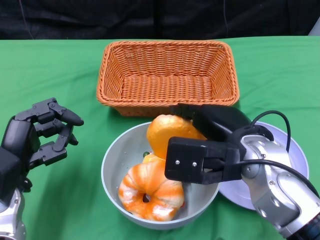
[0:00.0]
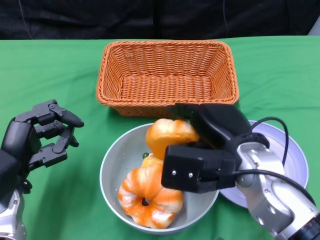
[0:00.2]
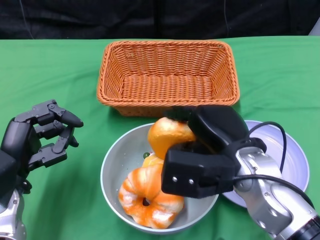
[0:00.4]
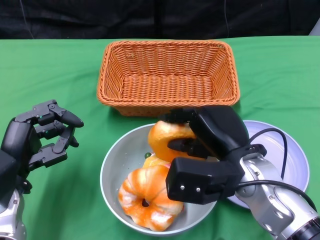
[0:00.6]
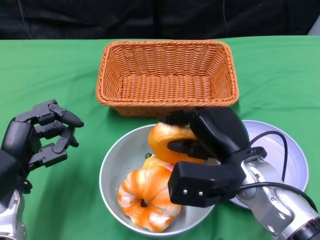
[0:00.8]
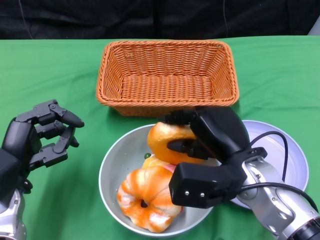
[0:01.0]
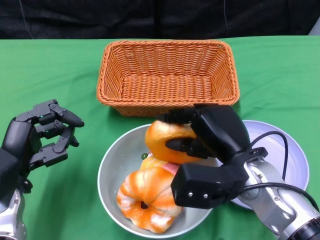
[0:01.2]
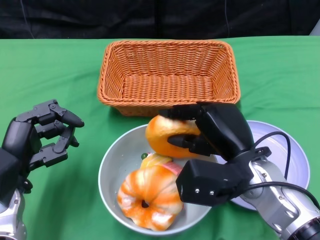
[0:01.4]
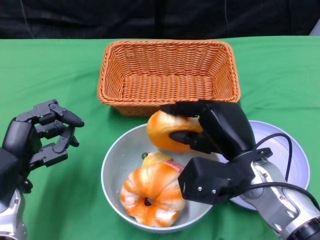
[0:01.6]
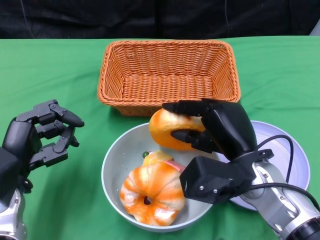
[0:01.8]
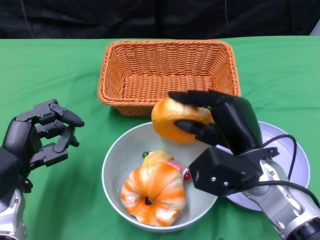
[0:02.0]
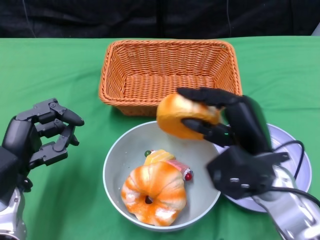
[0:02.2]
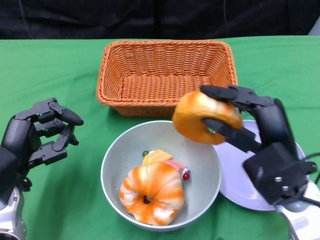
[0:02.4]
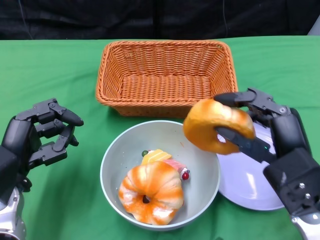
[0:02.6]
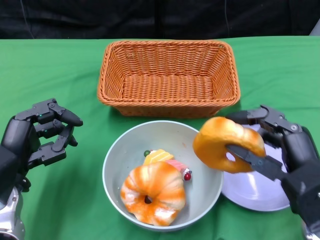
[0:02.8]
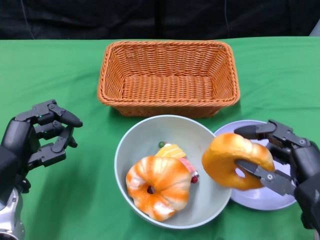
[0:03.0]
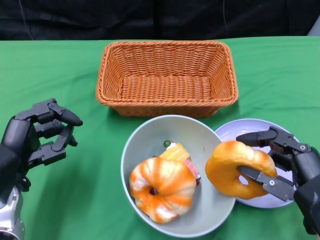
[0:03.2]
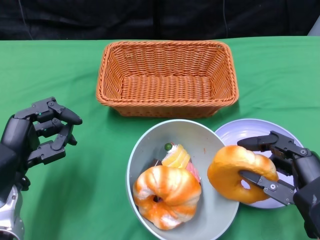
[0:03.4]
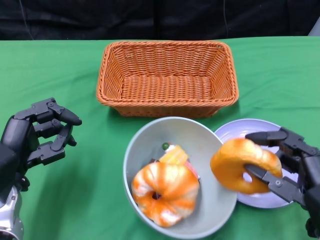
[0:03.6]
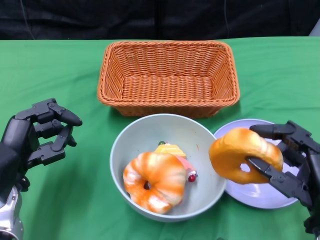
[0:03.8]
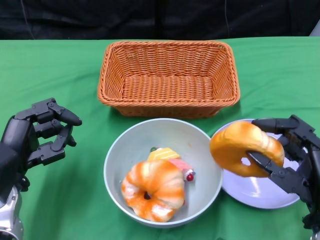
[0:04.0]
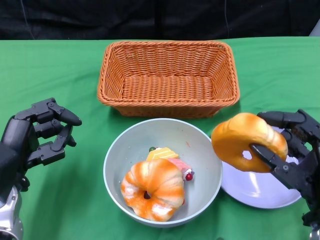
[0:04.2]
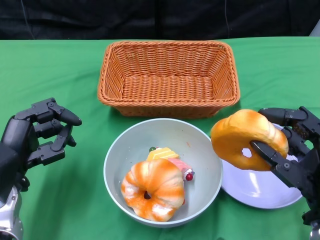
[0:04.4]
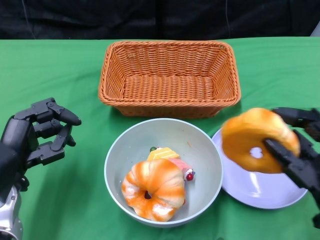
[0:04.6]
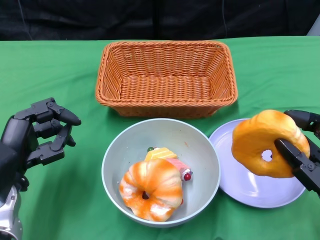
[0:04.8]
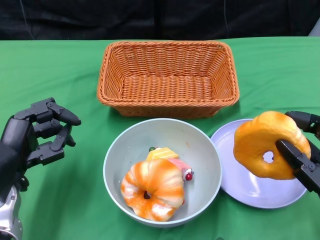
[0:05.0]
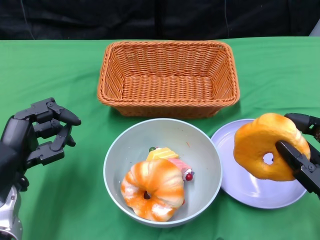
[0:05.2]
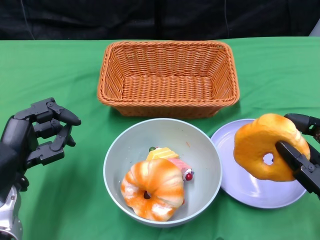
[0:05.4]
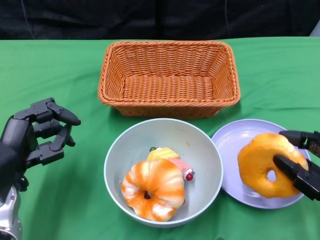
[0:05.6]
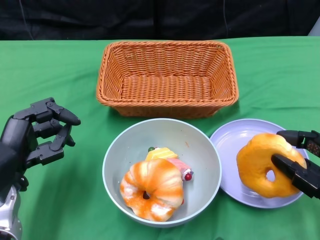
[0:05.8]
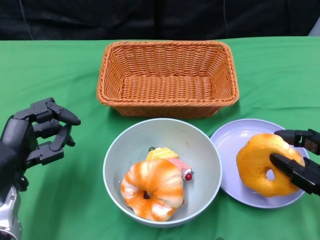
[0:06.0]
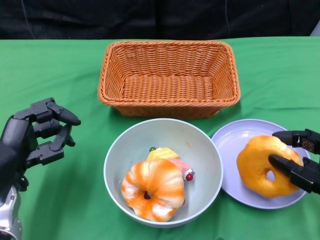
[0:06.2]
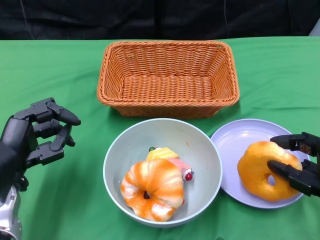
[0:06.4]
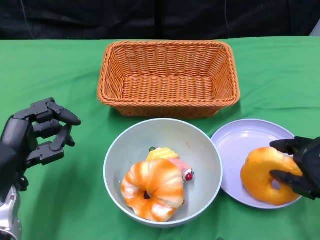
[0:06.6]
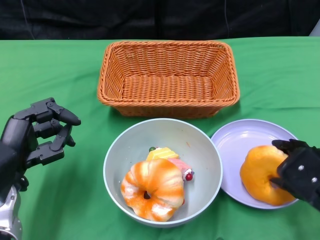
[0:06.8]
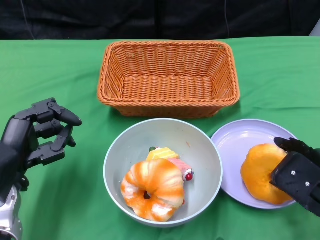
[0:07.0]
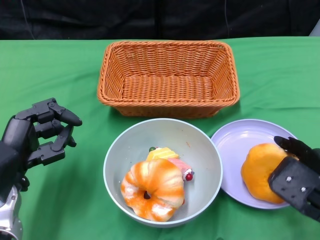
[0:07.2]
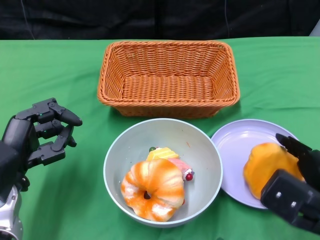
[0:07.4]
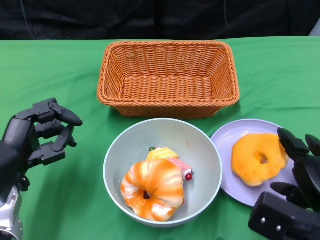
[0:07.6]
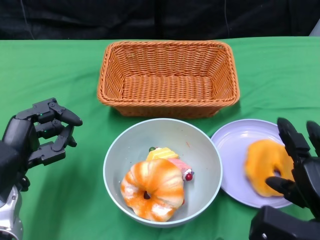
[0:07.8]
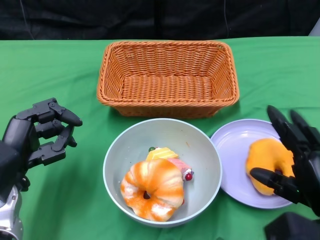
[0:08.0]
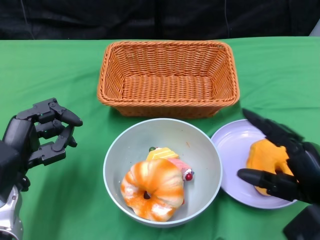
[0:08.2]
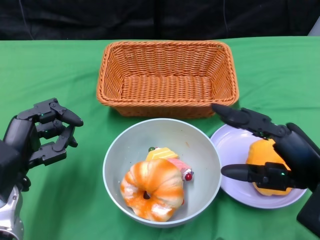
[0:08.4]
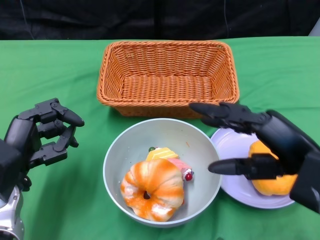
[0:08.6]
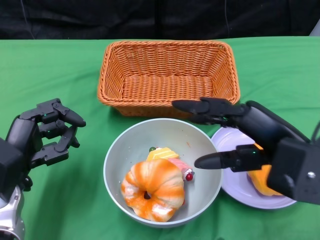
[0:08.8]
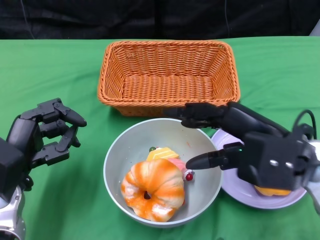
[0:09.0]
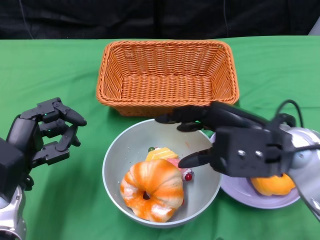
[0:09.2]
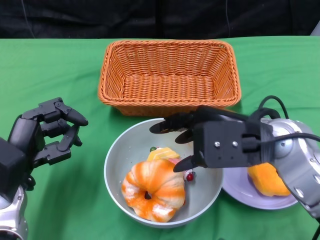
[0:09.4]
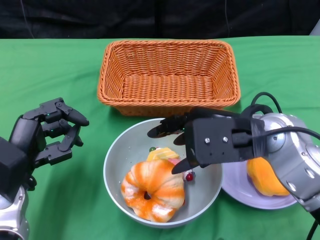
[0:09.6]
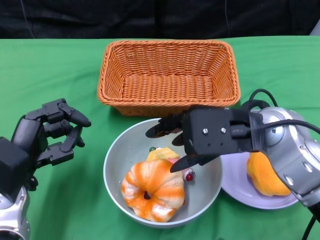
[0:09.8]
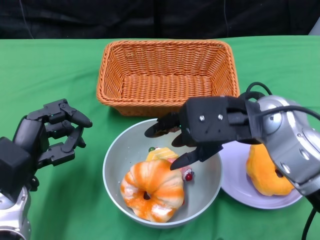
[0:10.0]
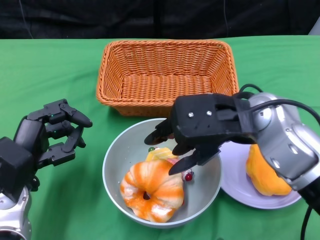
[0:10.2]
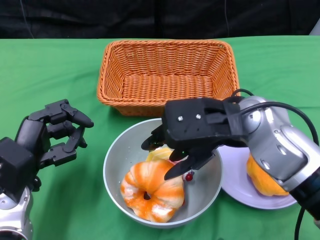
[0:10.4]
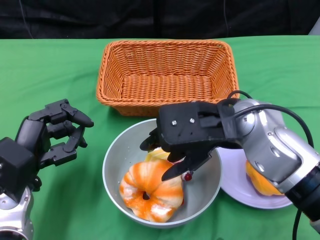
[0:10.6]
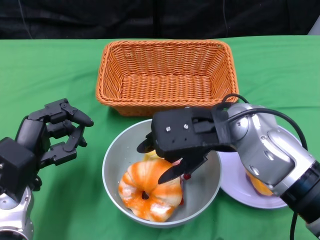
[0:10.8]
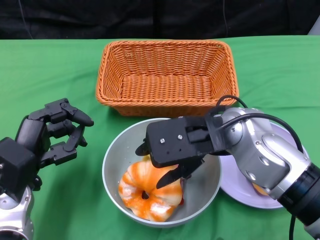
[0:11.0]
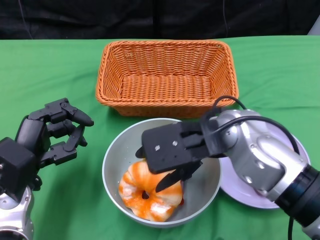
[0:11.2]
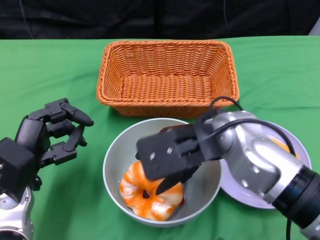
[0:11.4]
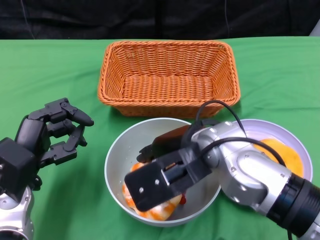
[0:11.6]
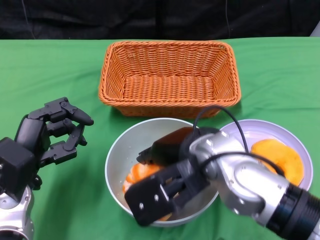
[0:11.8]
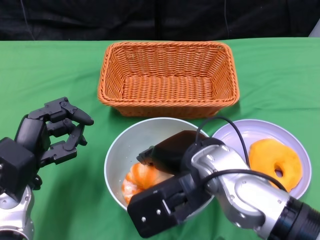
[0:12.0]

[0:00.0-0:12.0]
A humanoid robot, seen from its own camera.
0:01.6 to 0:03.0: The right hand goes about 10 cm to the right and backward.
0:07.6 to 0:09.0: The right hand moves upward and to the left, approximately 10 cm.
0:09.0 to 0:10.4: The right hand heads to the left, covering roughly 5 cm.
0:10.4 to 0:12.0: The right hand moves some 10 cm.

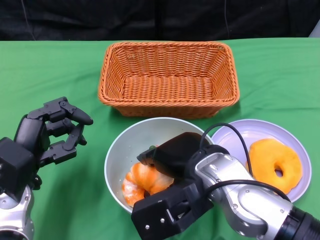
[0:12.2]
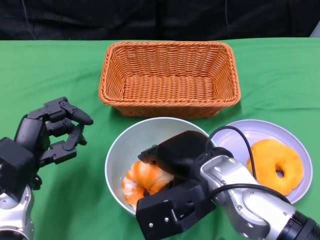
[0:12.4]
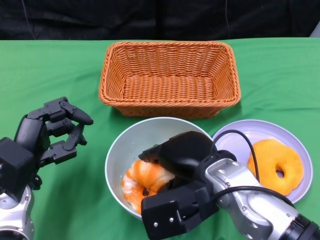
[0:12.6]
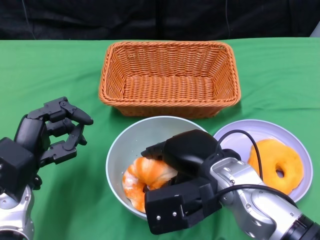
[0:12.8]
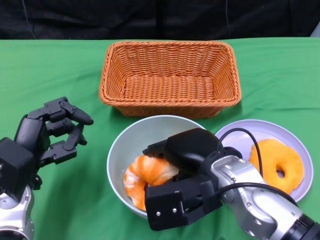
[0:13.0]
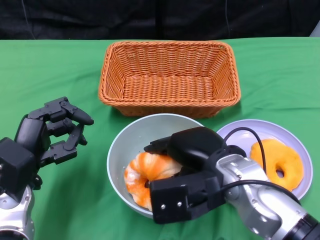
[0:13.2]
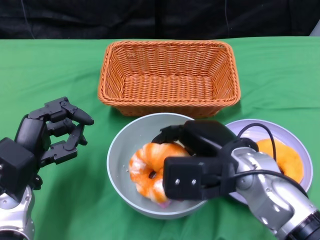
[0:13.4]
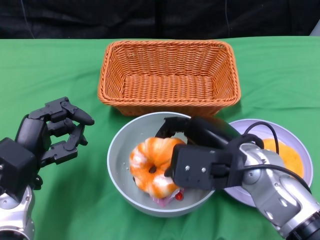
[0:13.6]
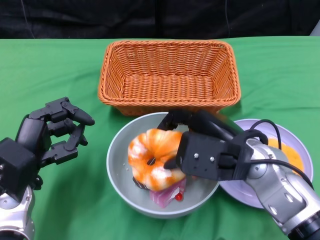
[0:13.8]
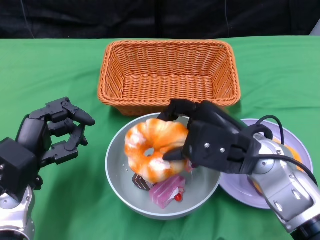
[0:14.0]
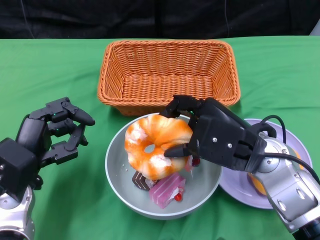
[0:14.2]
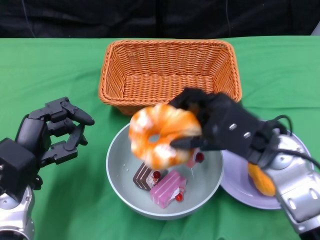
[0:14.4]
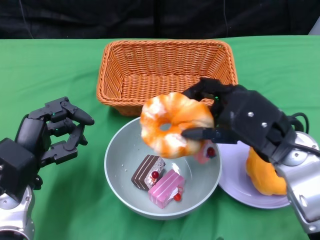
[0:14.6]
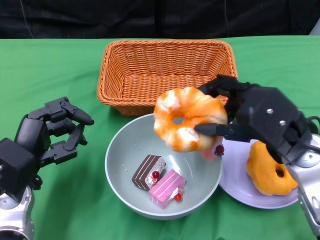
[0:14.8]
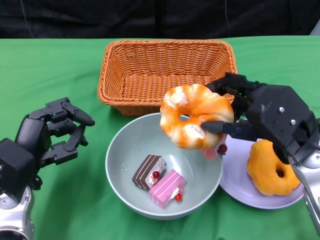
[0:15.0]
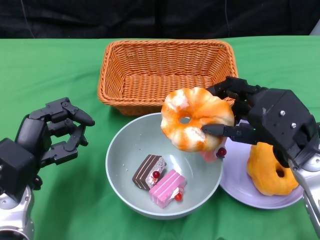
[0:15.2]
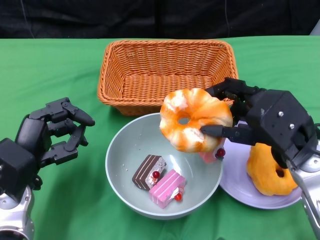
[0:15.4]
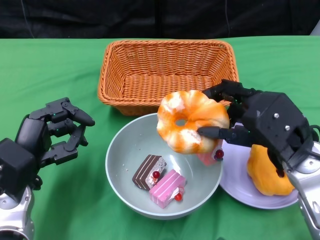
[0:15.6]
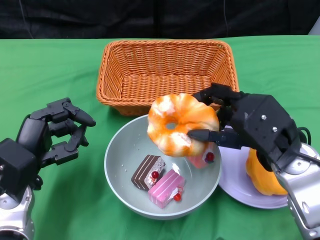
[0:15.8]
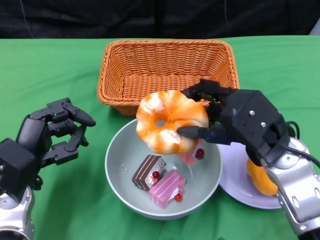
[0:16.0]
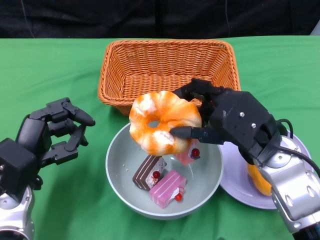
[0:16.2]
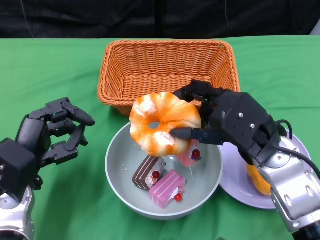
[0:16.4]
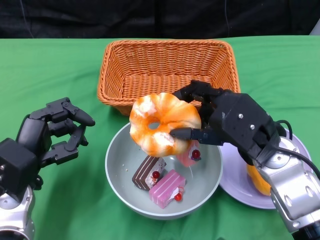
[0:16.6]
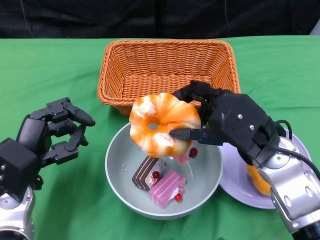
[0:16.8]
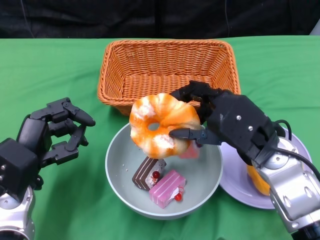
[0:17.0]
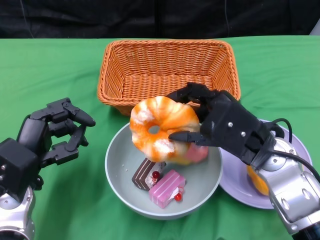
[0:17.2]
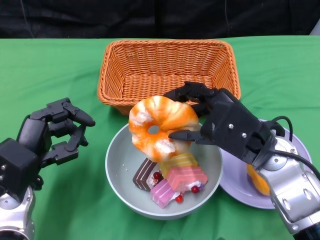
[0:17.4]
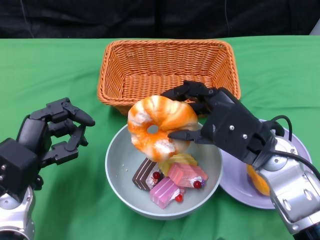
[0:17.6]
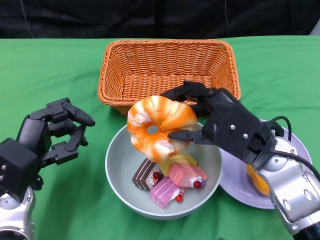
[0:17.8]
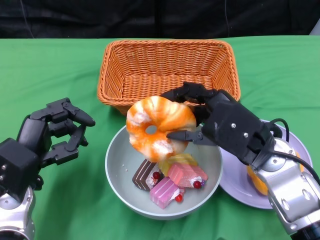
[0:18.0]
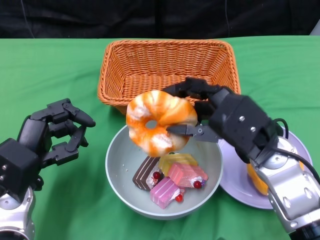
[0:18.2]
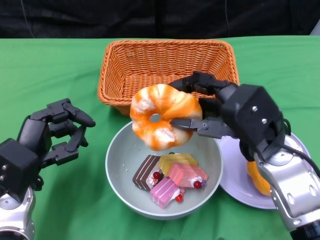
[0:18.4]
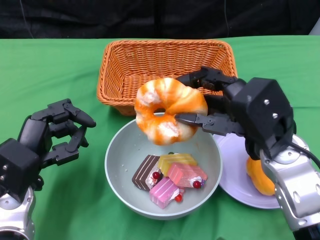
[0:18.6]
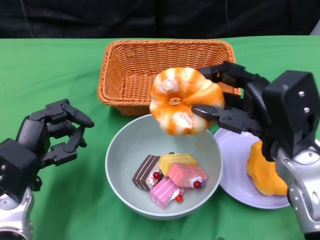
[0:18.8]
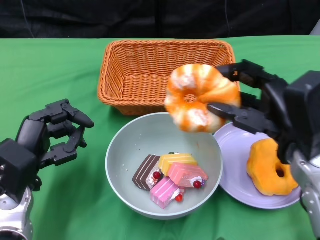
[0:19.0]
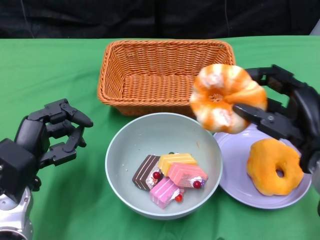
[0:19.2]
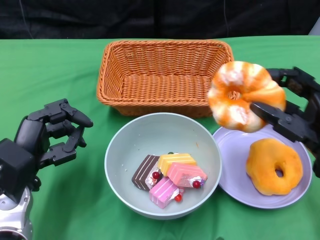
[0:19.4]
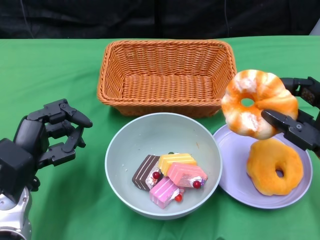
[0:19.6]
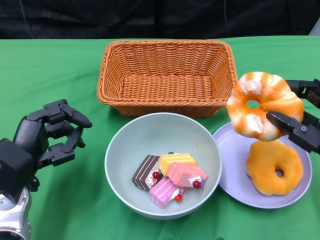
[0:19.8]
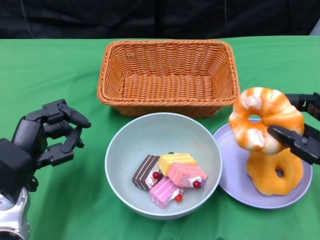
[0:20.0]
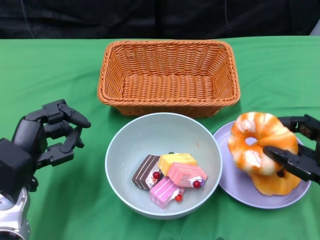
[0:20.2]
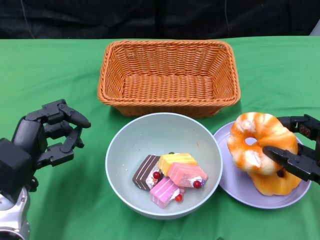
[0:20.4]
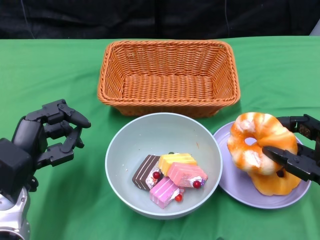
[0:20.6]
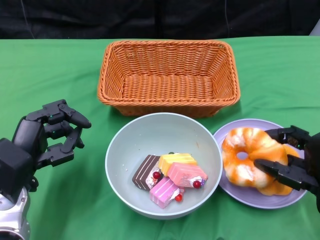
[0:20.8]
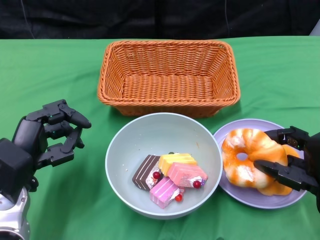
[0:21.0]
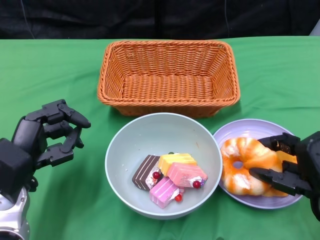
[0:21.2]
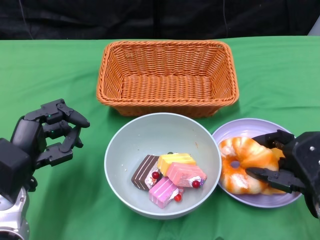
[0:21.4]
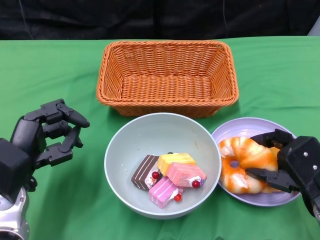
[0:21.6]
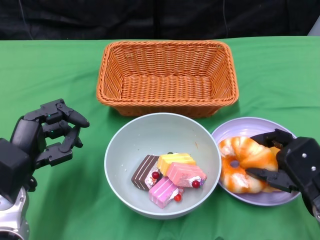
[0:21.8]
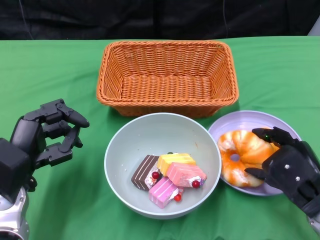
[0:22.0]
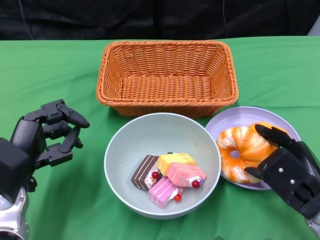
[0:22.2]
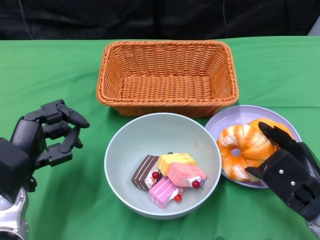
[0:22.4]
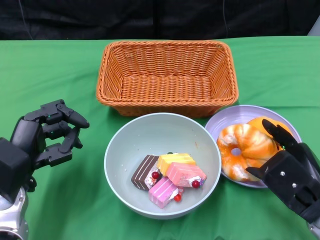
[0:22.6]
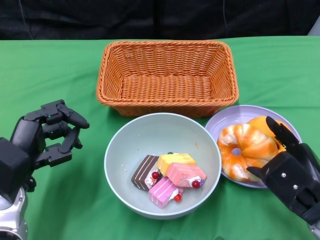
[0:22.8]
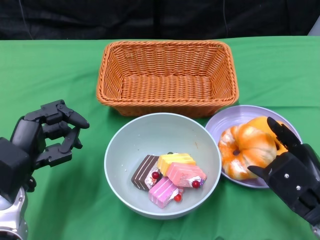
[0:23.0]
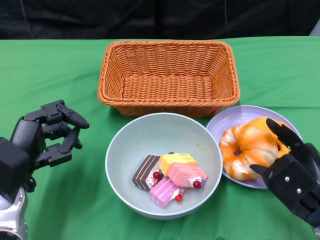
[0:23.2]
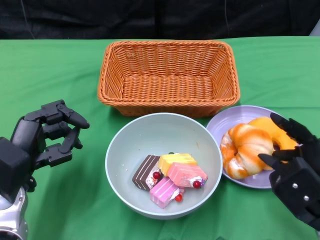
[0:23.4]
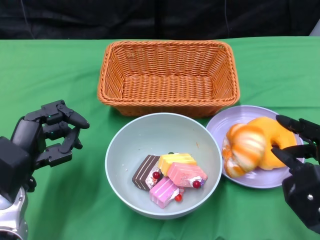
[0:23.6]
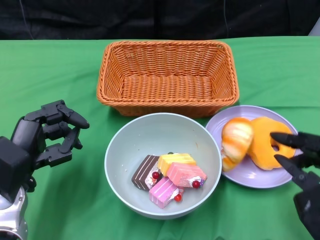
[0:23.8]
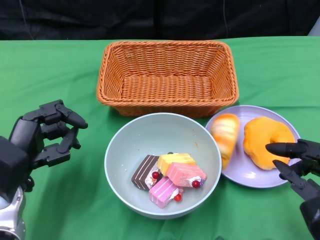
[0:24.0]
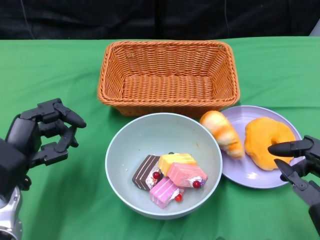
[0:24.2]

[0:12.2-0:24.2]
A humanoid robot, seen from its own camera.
0:12.2 to 0:13.8: The right hand heads to the right, covering approximately 5 cm.
0:13.8 to 0:15.2: The right hand shifts approximately 5 cm to the right.
0:16.6 to 0:18.2: The hands make only small movements.
0:18.2 to 0:19.8: The right hand heads to the right, covering approximately 10 cm.
0:19.8 to 0:21.2: The right hand moves downward, approximately 5 cm.
0:22.6 to 0:24.2: The right hand moves backward, about 5 cm.
